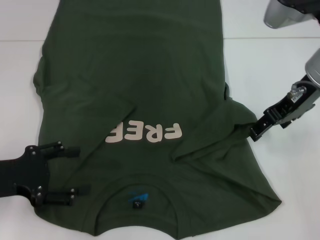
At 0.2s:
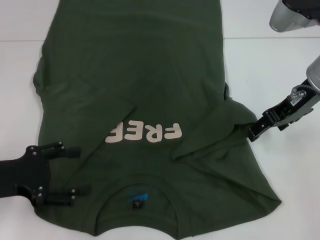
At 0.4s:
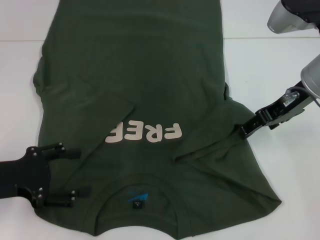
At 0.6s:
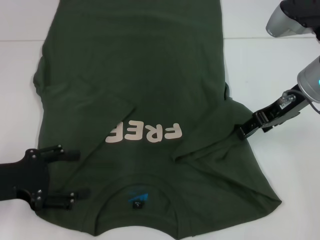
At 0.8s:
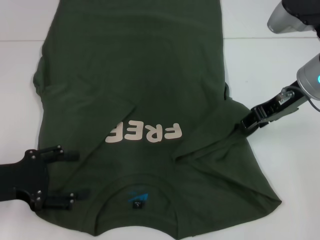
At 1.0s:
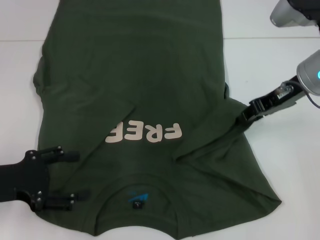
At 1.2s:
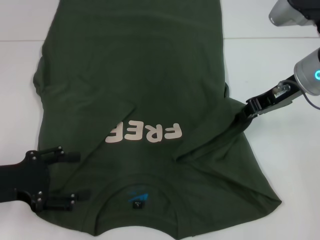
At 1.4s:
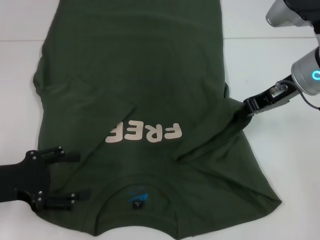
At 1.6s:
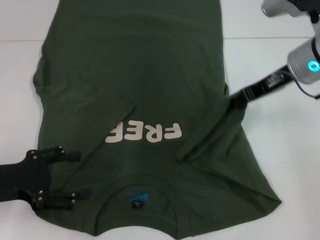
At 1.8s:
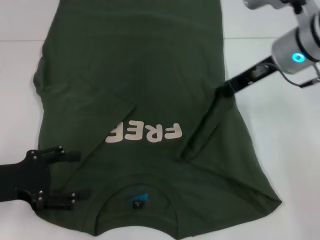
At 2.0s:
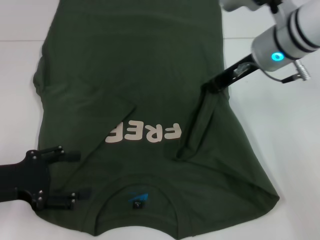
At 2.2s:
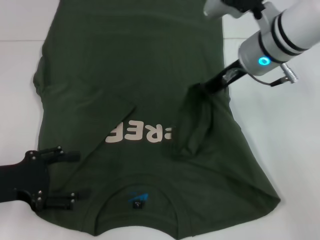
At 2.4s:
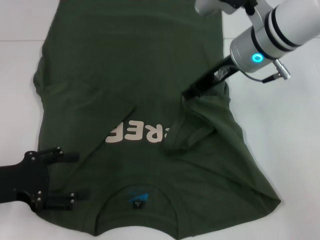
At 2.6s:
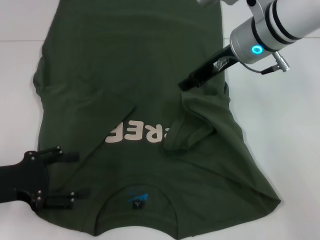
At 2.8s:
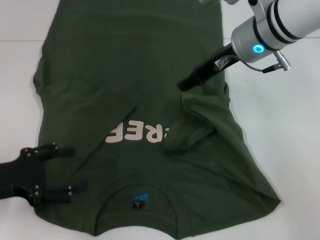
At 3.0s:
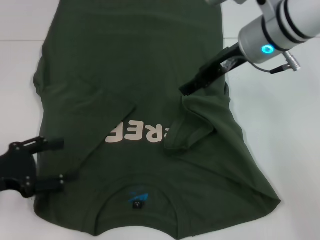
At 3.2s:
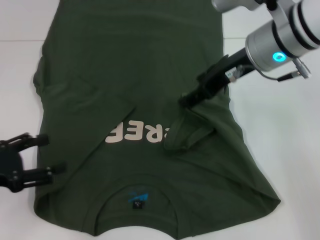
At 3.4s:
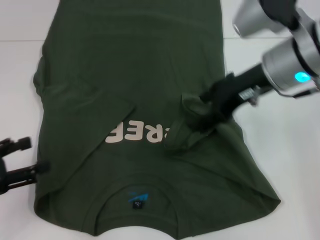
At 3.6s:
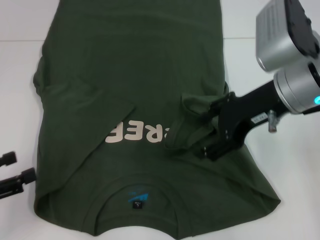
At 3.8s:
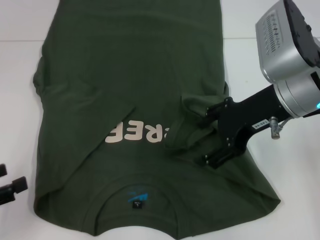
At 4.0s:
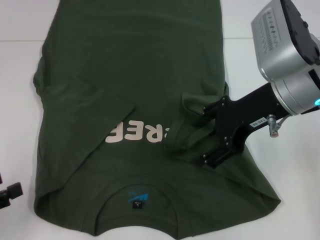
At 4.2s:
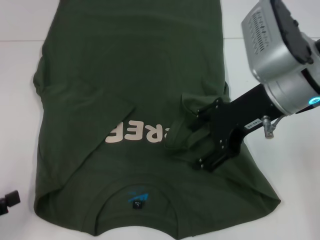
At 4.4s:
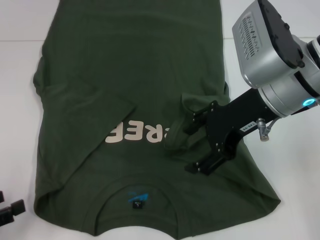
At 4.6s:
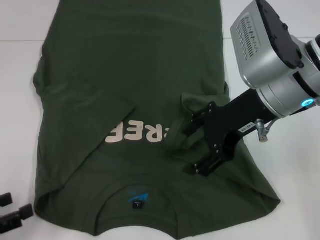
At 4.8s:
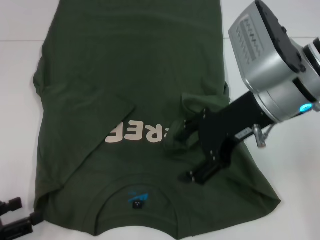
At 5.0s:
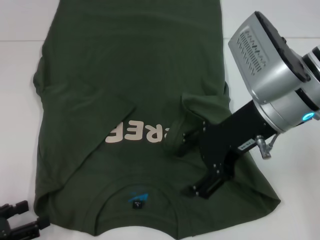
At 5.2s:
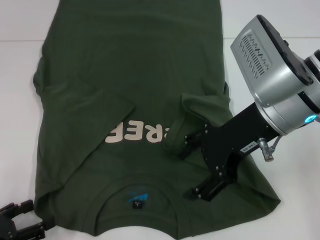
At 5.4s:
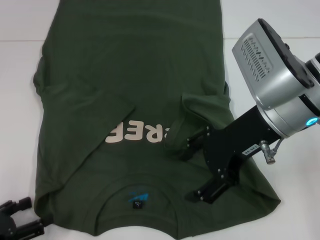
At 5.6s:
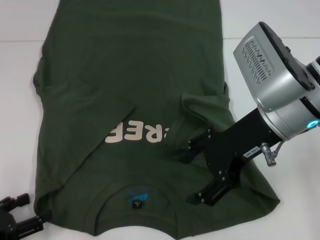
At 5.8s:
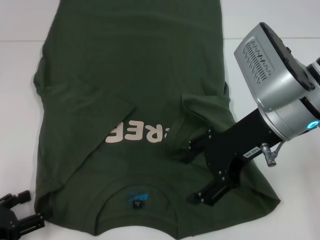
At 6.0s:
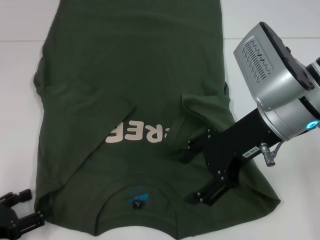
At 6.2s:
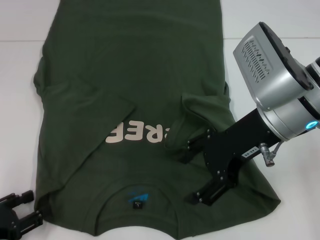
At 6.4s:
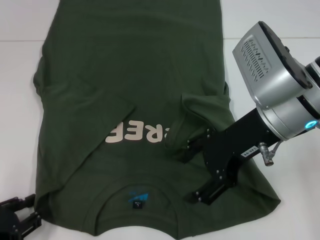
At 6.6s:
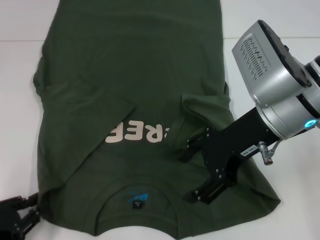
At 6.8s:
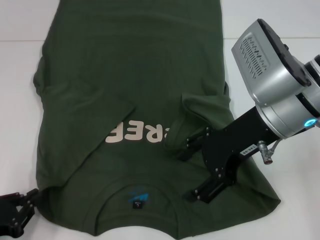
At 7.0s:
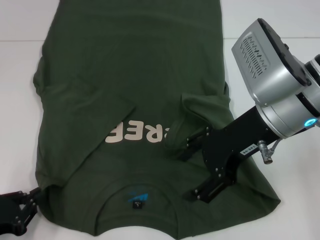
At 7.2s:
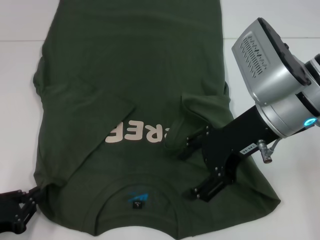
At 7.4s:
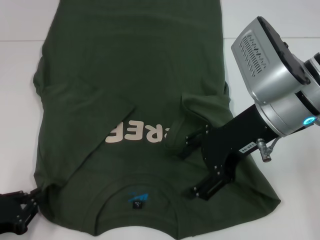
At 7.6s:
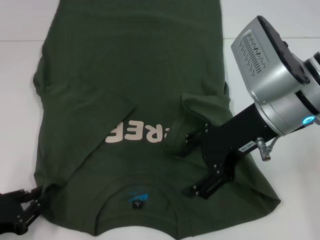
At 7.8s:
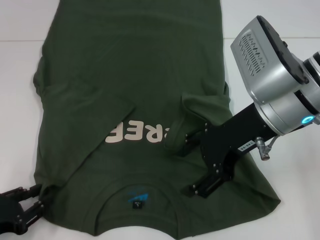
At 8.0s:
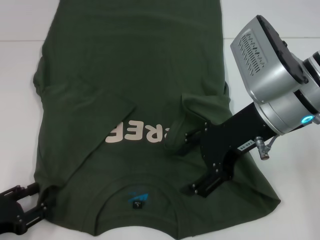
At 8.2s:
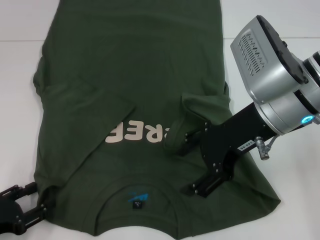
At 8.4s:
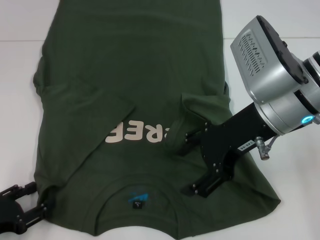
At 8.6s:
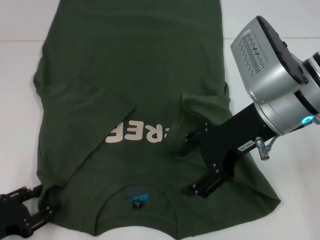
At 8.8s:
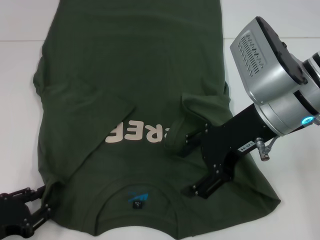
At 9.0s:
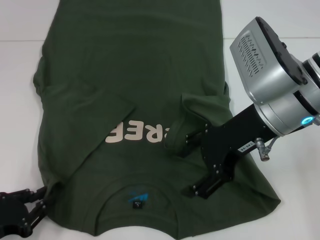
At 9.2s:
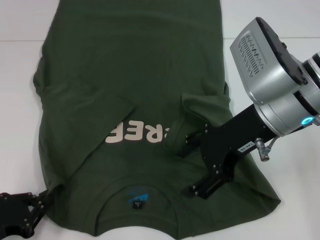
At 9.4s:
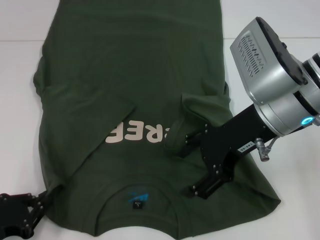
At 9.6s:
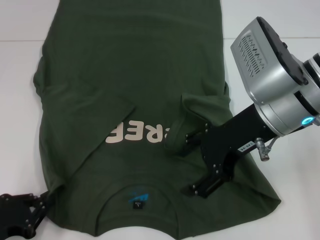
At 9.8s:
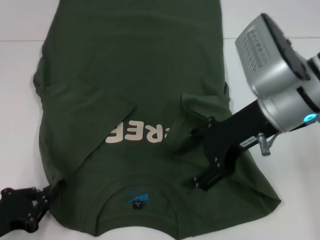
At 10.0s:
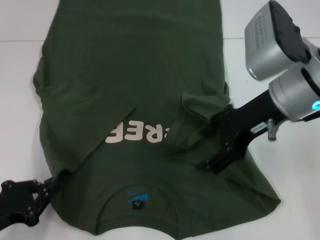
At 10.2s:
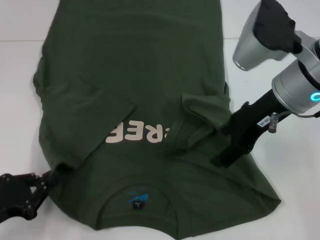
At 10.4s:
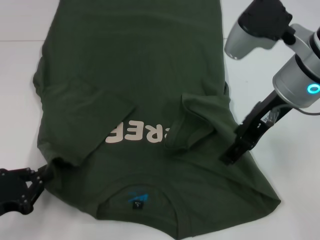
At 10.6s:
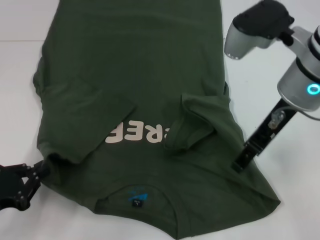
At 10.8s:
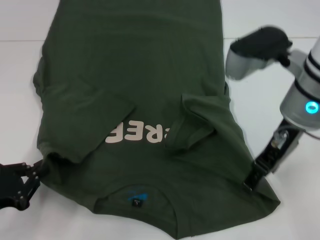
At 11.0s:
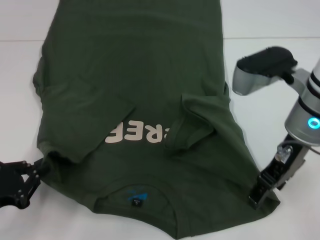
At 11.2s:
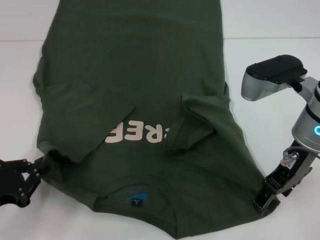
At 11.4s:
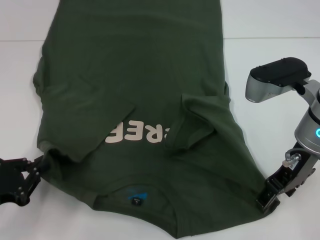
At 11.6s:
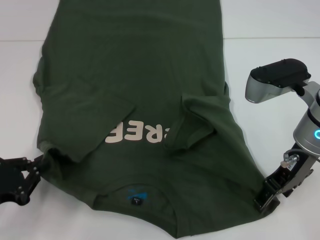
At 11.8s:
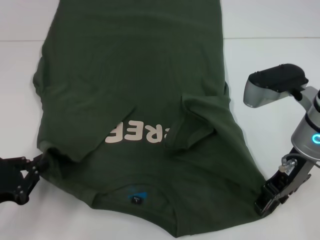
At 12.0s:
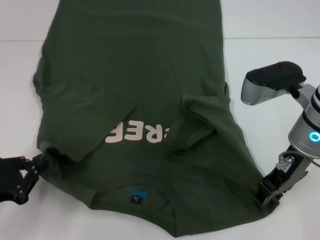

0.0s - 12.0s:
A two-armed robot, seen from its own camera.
Step, 0.0s - 2.6s: Fold the bottom right sleeve with your right hand.
Step, 2.8s - 9.6s: Grab the bottom left corner with your left hand.
0.0s - 1.6s: The right gripper closes up.
1.6s - 3.0s: The right gripper travels to the left by roughly 5 cm, and opens its fingers.
3.0s - 4.4s: The right gripper goes approximately 10 cm backward. Meanwhile the left gripper is displaced backward and to the left by about 10 cm.
4.4s - 6.0s: The left gripper shifts about 5 cm downward.
6.0s - 7.6s: The left gripper closes its fingers.
7.6s - 9.0s: The grippers make only small movements.
9.0s - 10.4s: The left gripper closes.
10.4s - 12.0s: The right gripper goes approximately 5 cm downward.

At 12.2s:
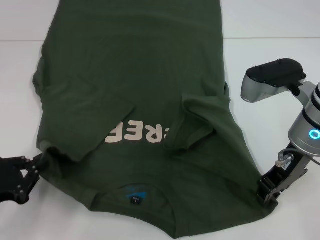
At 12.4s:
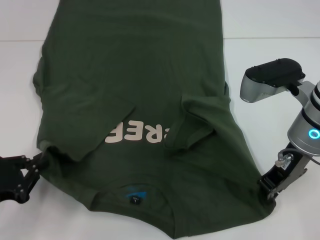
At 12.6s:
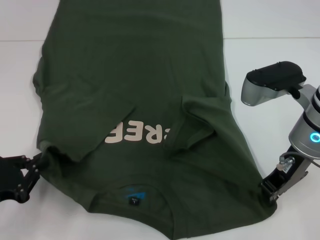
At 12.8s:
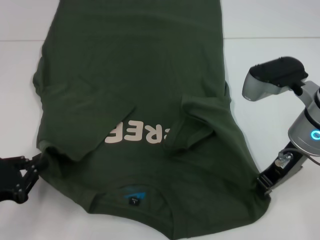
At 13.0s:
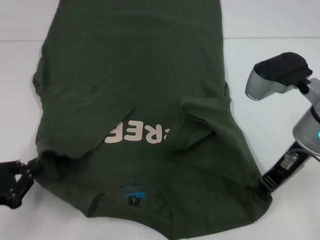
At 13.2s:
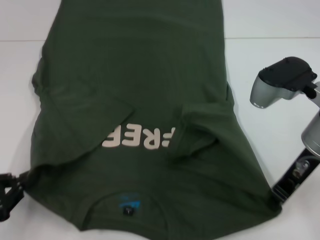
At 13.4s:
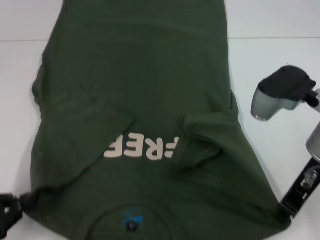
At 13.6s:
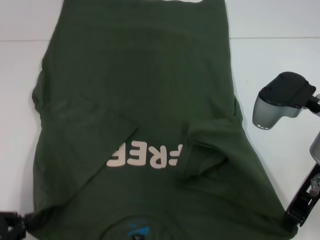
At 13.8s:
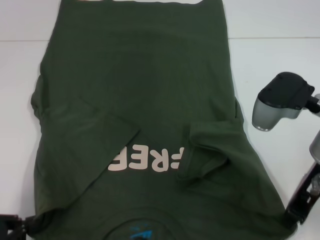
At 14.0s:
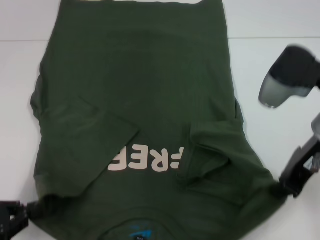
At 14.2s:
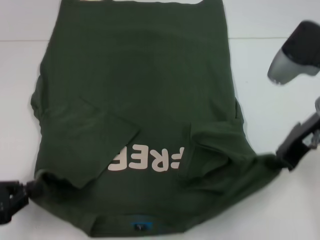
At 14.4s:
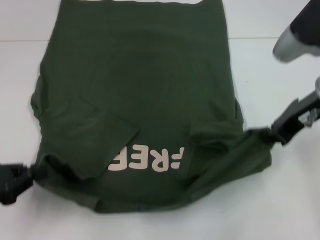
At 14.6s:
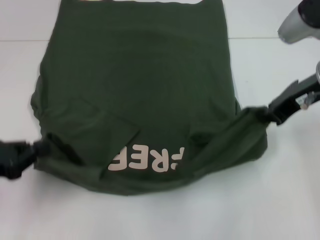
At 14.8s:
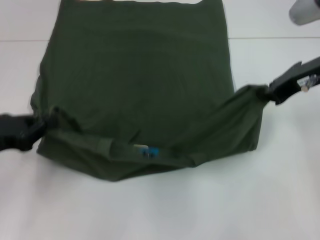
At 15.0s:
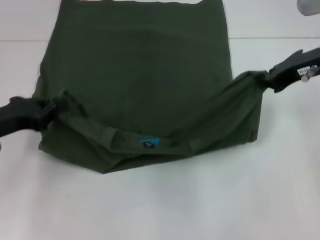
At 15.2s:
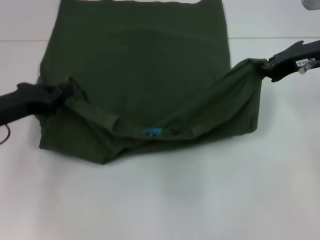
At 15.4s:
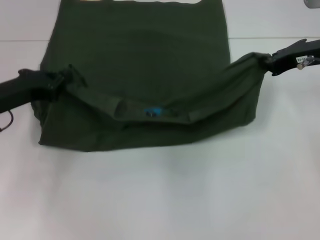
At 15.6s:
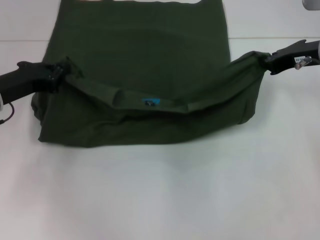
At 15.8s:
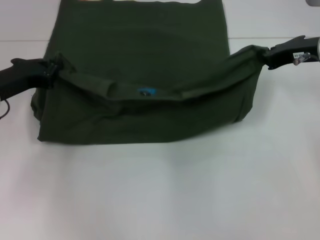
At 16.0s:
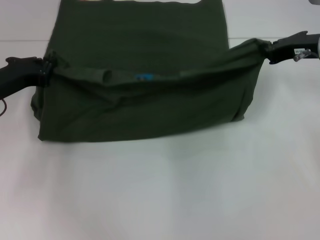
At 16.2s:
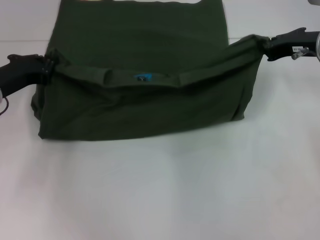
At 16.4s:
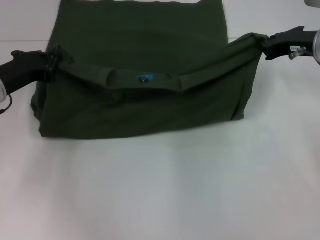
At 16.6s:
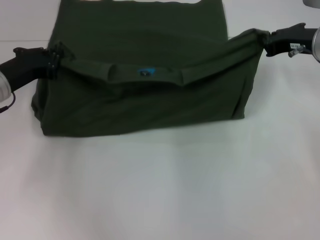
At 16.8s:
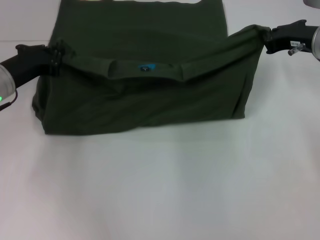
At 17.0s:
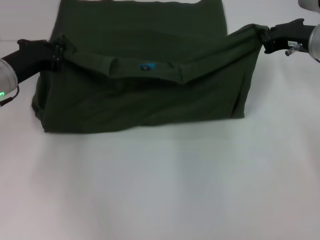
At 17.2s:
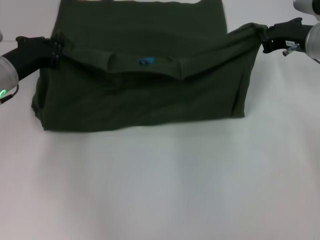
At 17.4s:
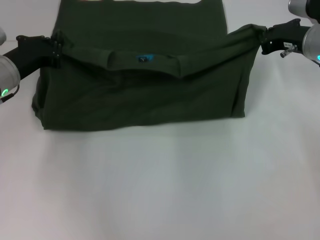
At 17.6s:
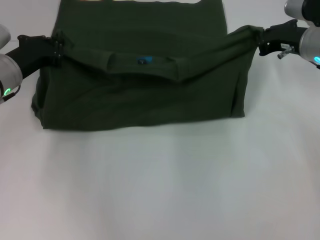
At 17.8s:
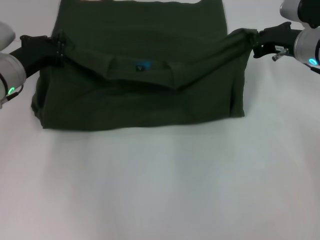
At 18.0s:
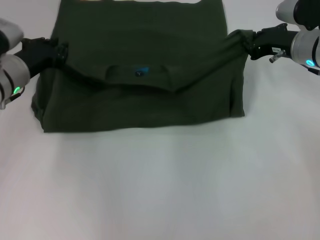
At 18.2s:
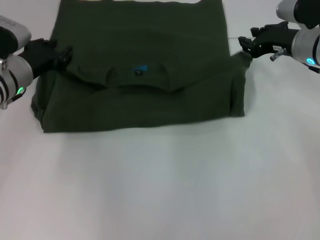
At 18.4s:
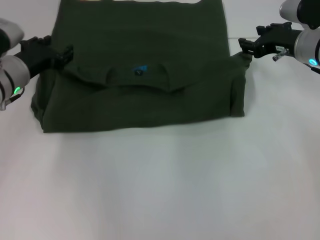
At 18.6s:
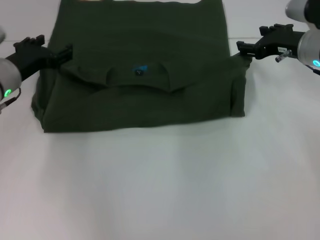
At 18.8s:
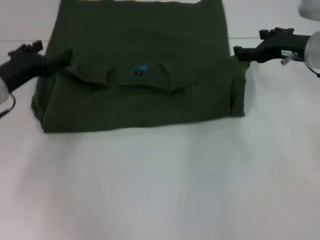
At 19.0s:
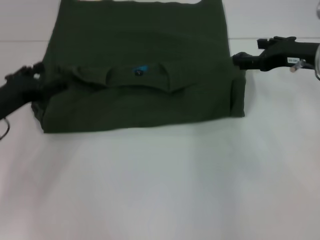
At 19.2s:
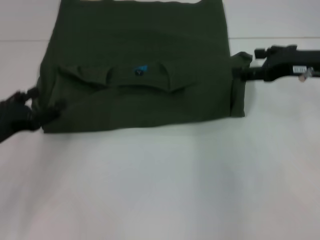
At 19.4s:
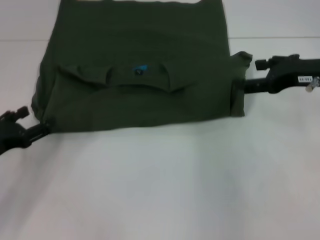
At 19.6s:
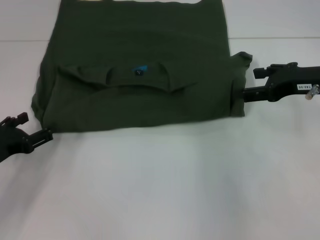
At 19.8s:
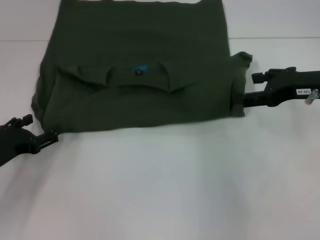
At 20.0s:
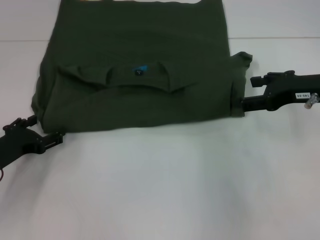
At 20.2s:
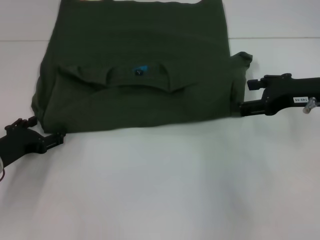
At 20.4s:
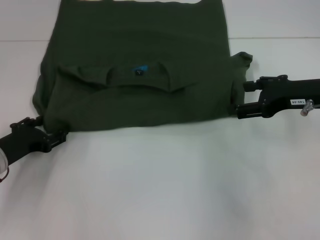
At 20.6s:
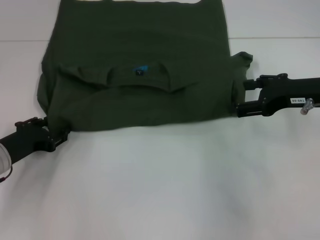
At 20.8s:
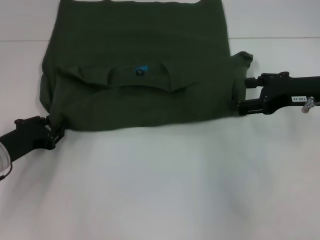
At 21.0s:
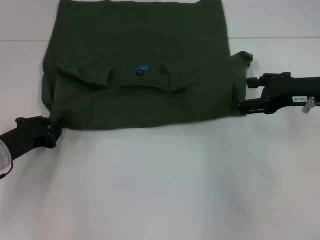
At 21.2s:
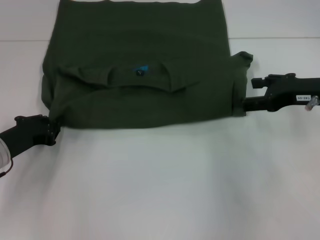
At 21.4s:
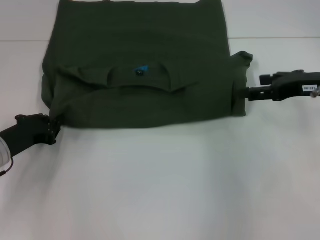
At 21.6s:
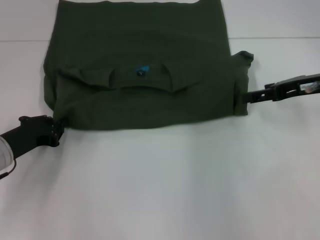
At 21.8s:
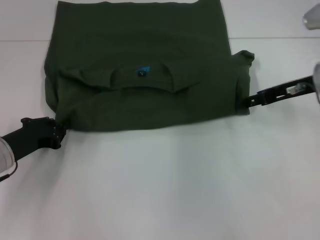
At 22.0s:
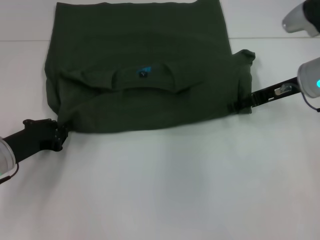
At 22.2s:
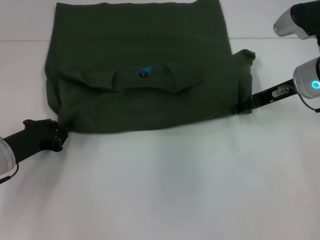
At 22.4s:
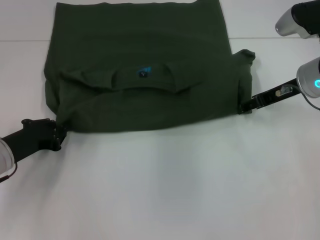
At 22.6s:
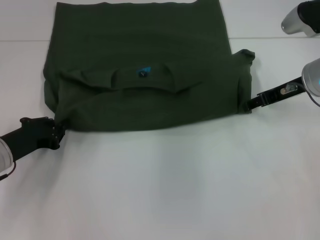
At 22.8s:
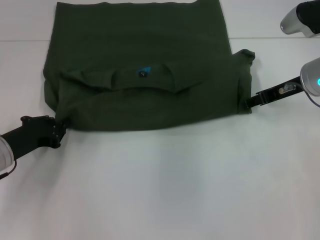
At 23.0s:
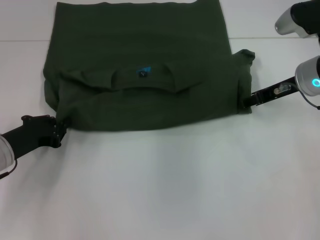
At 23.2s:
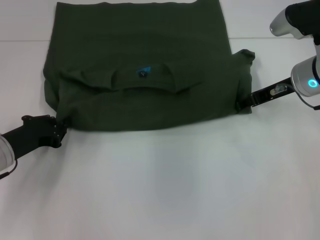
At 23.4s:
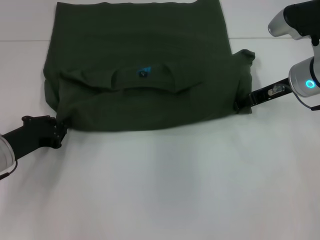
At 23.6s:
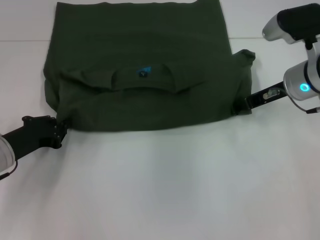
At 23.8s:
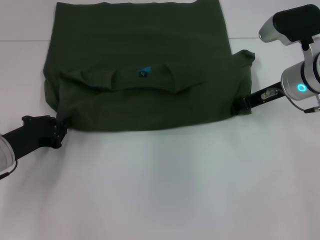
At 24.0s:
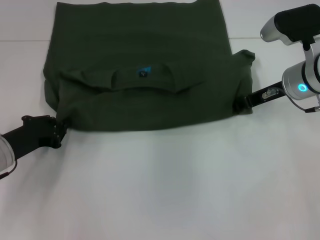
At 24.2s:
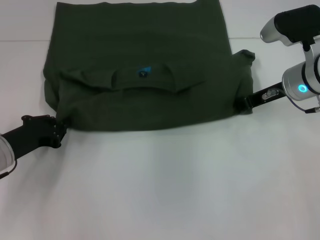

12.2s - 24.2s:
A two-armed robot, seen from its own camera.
Step, 13.0s - 18.2s: Fold the clothes with your left hand.
Step, 13.0s - 18.2s: Fold the clothes with your right hand.
12.2s - 13.8s: The left gripper changes place by some 5 cm. Meanwhile the right gripper closes its fingers.
13.8s - 15.2s: The right gripper moves forward and to the right, approximately 10 cm. The left gripper goes roughly 15 cm forward.
15.2s - 16.6s: The right gripper shifts by approximately 5 cm. The left gripper goes some 5 cm forward.
16.6s - 18.2s: The left gripper changes place by some 5 cm.
18.2s - 19.8s: The right gripper goes roughly 10 cm backward, and opens its fingers; the left gripper moves backward, to the left and downward, roughly 15 cm, and opens.
19.8s - 21.2s: The left gripper closes its fingers.
21.2s - 22.6s: The right gripper moves forward, about 5 cm.
22.6s - 24.2s: The right gripper closes its fingers.
